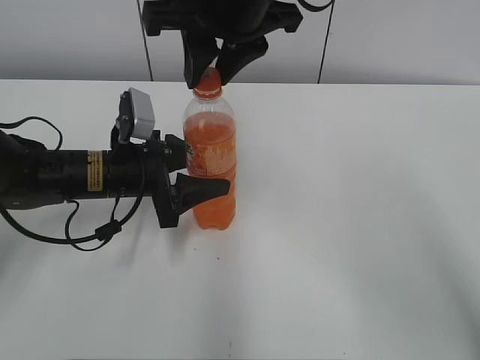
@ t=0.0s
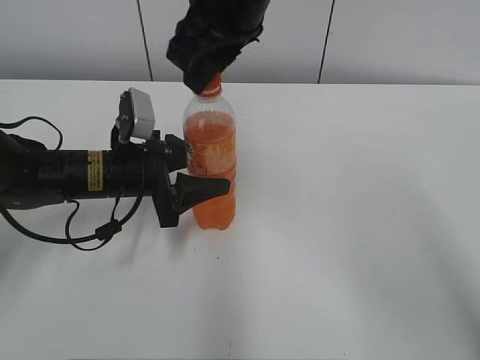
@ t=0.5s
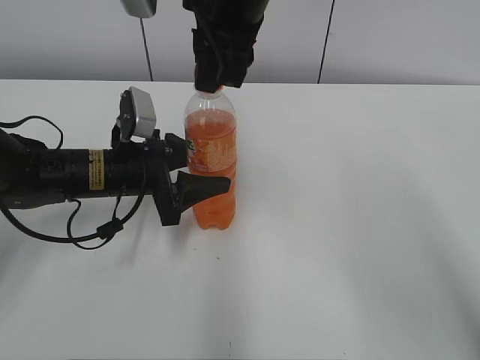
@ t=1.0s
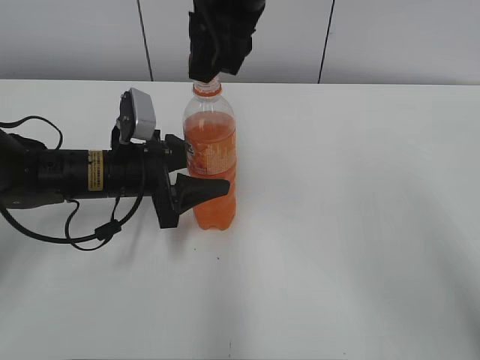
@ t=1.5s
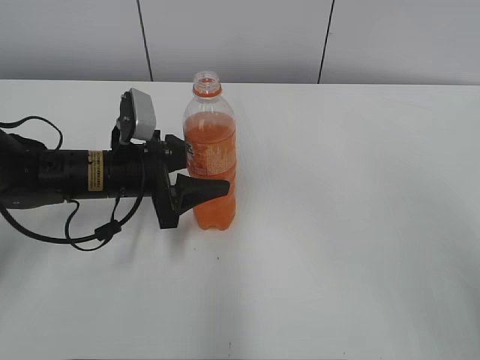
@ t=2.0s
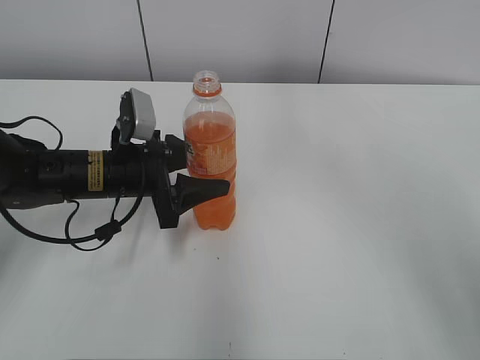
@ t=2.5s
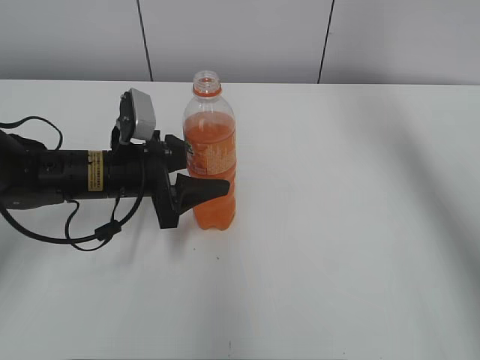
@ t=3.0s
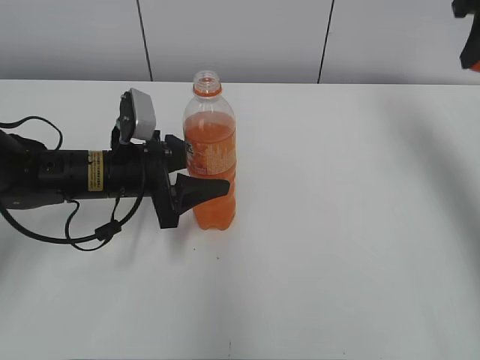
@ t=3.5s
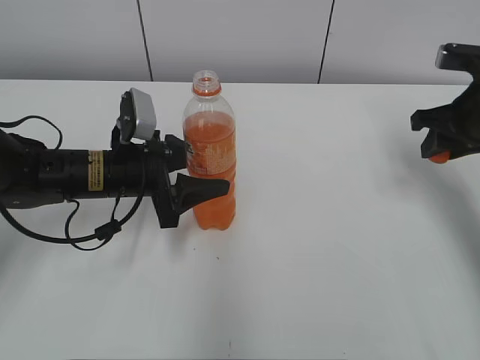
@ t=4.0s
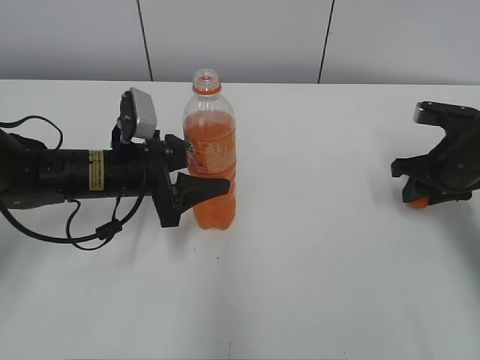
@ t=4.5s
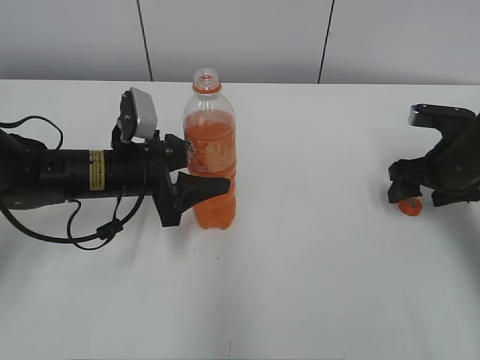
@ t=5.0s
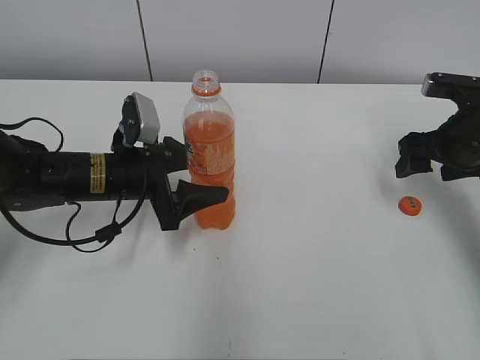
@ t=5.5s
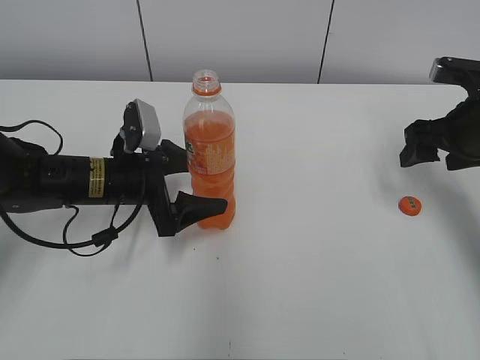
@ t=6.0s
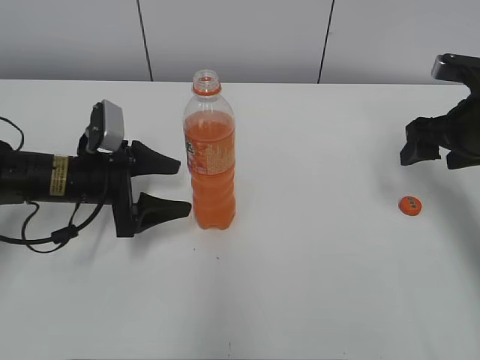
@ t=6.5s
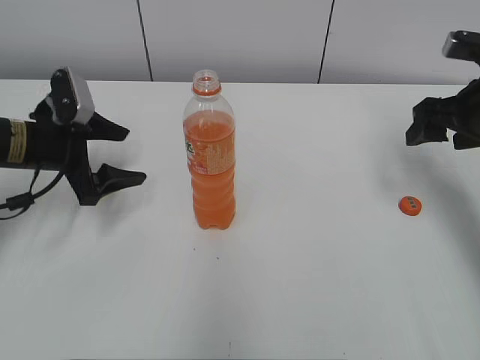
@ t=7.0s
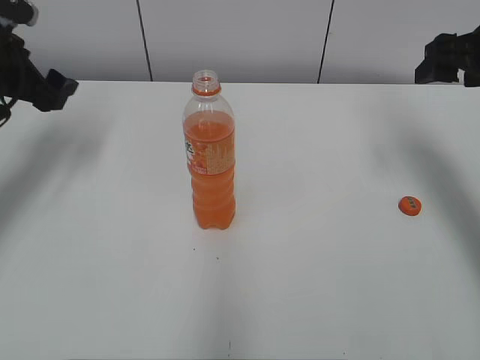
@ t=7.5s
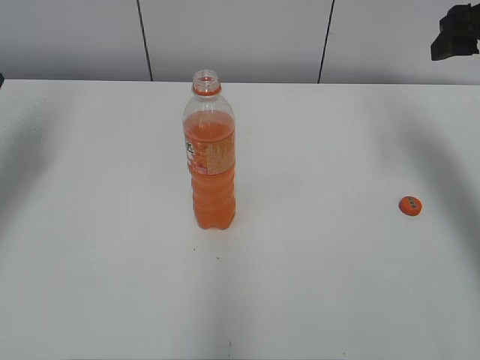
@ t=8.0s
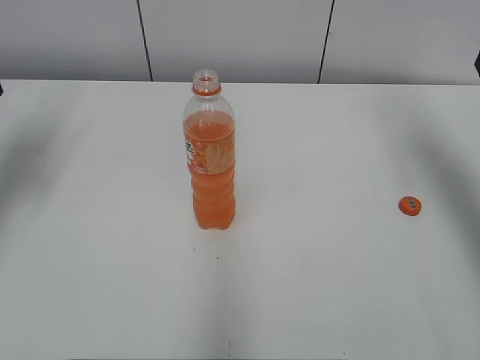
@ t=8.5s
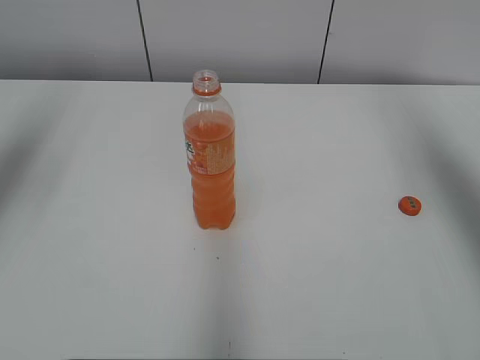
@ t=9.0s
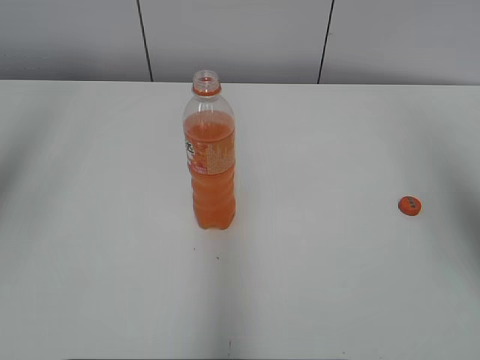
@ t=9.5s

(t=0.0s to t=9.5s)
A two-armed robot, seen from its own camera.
Step, t=1.5s - t=4.5s: Place the bottle cap on the right.
t=0.0s - t=2.0s: The right gripper goes roughly 10 cm upward.
t=2.0s - t=4.0s: The right gripper travels to the right and downward by approximately 35 cm.
t=4.0s - t=5.5s: The right gripper opens.
t=5.5s - t=7.5s: The right gripper goes approximately 10 cm upward, while the left gripper goes roughly 20 cm to the left and upward, and opens up.
t=7.5s - t=9.5s: The left gripper travels upward and backward by about 25 cm. Meanwhile the right gripper heads backward and upward, covering roughly 20 cm.

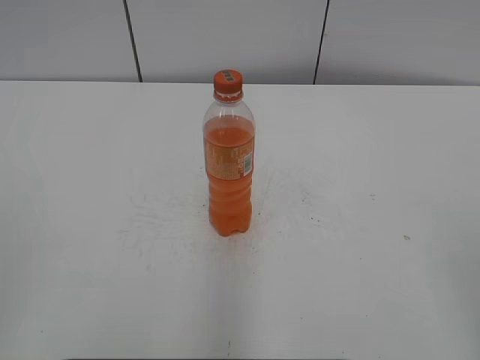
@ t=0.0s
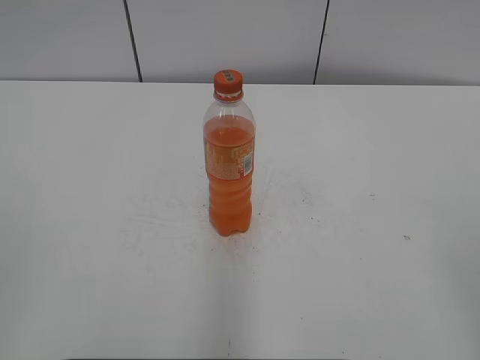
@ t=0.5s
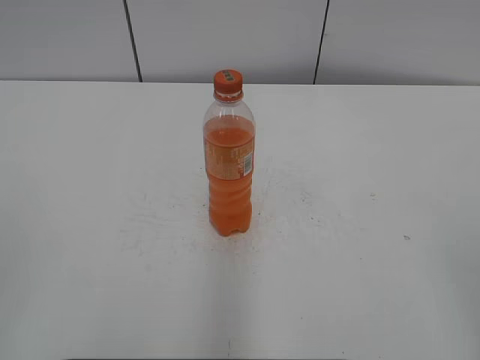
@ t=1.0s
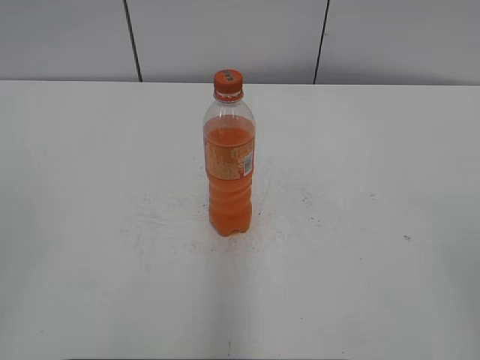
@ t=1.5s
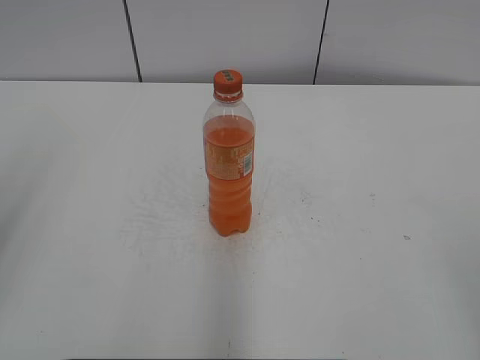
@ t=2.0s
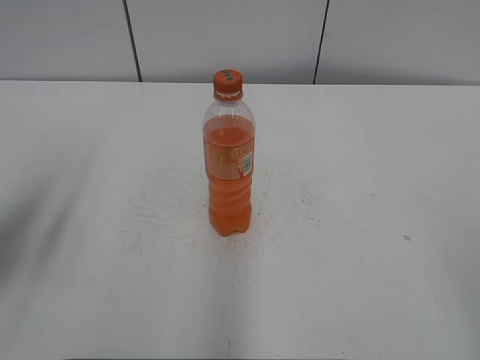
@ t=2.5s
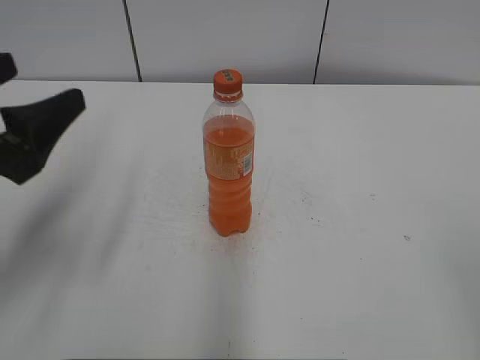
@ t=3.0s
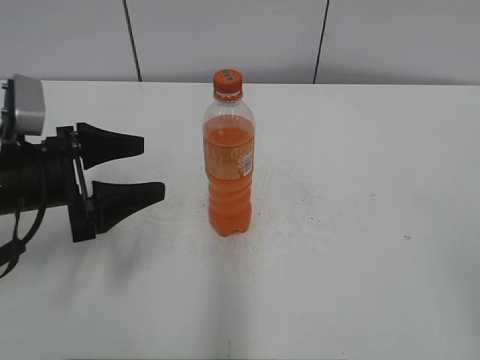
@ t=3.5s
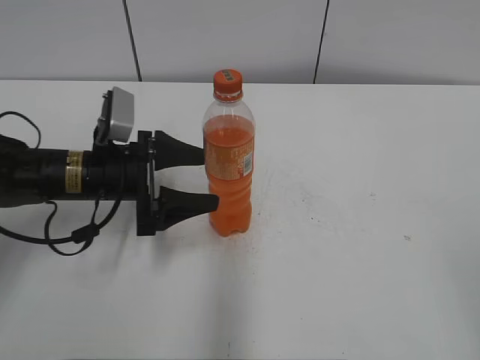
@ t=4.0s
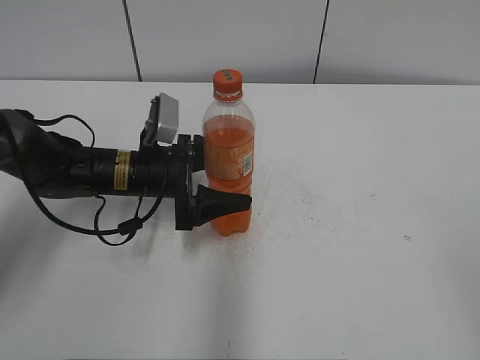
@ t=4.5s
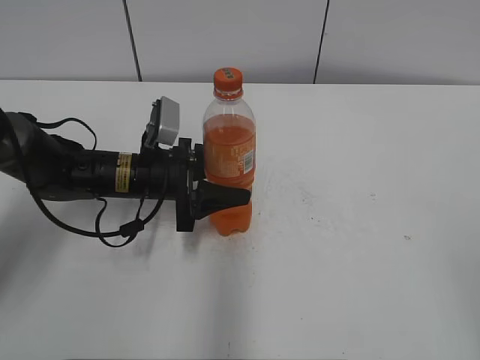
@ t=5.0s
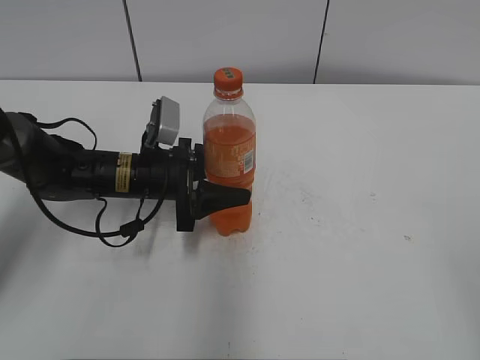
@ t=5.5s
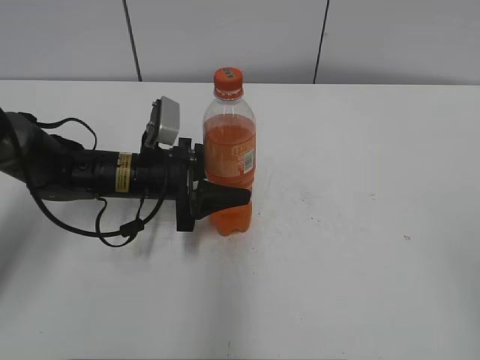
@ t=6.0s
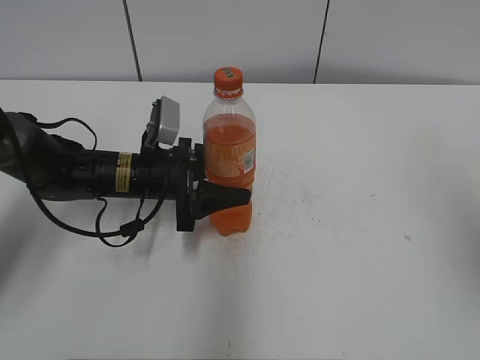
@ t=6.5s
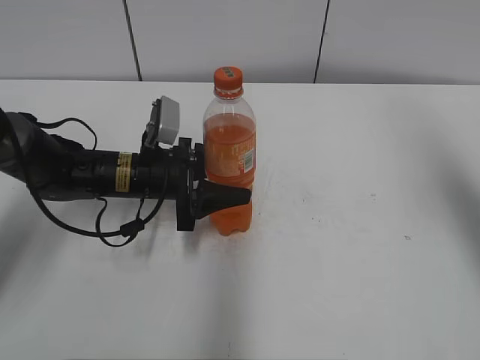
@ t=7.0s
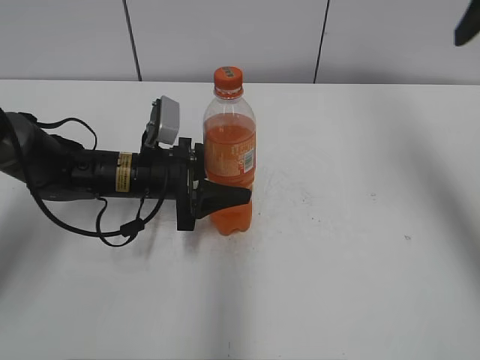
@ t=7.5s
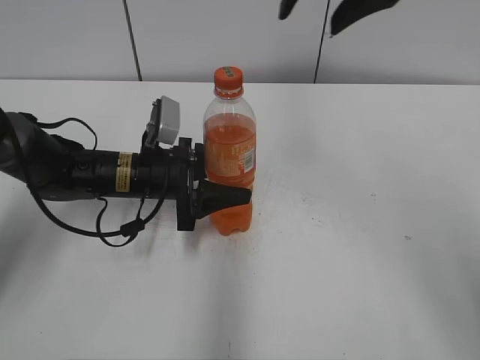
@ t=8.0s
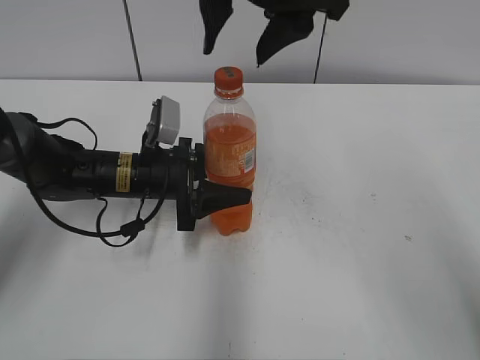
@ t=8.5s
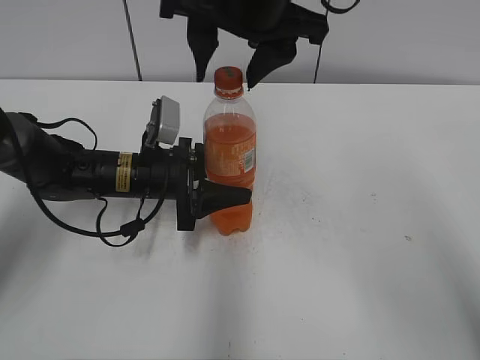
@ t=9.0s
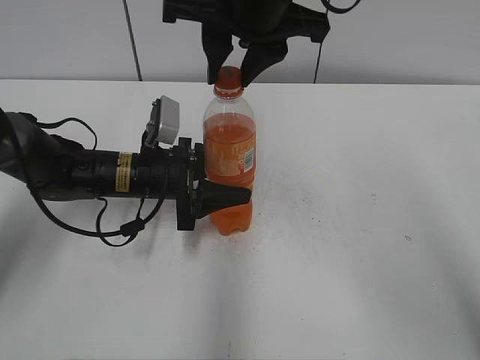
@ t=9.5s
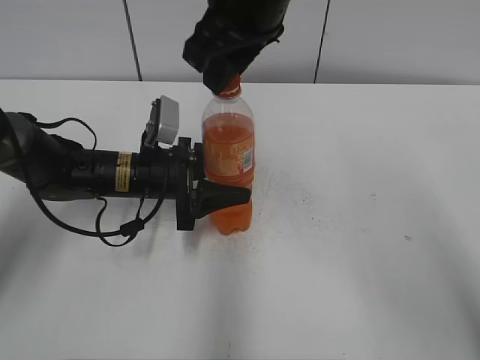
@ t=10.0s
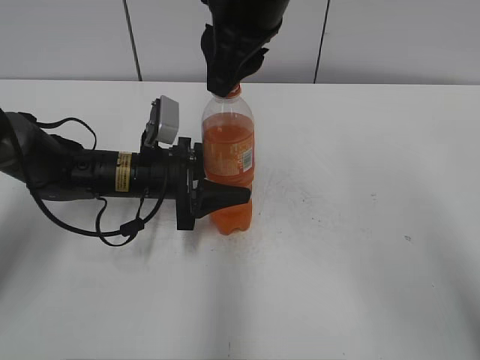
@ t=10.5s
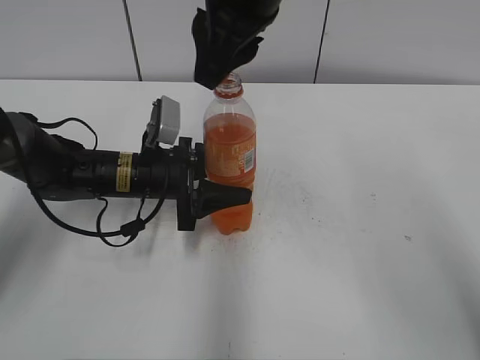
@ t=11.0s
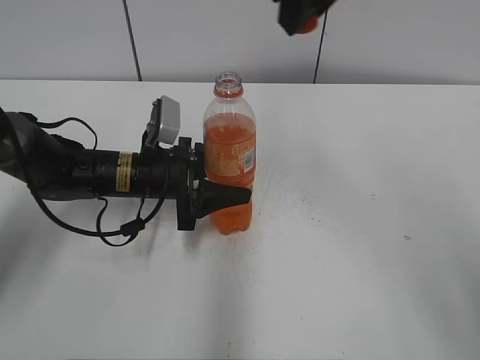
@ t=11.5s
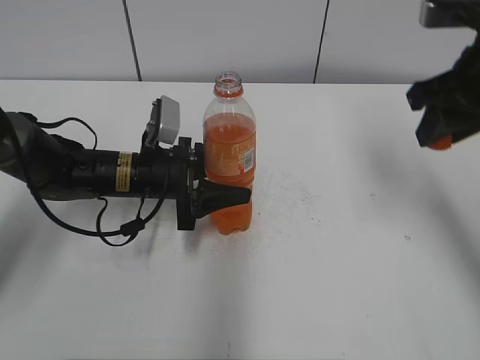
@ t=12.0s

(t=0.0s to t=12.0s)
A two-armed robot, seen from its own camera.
Step, t=0.0s - t=5.0s: Grab the Mirinda with the left hand.
t=2.0s - t=4.0s: The left gripper travels downward, forward and to the right by approximately 35 cm, and opens its fingers.
t=4.0s - t=6.0s: The left gripper ends up roughly 5 cm from where it was, and closes up.
t=6.0s - t=8.0s: The right gripper heads forward and to the left, covering about 35 cm.
t=8.0s - t=10.0s: The right gripper is displaced to the left and downward by some 10 cm, and closes its fingers.
t=10.0s - t=12.0s: The right gripper shifts approximately 20 cm to the right.

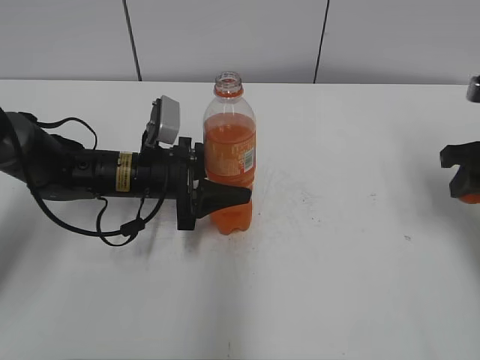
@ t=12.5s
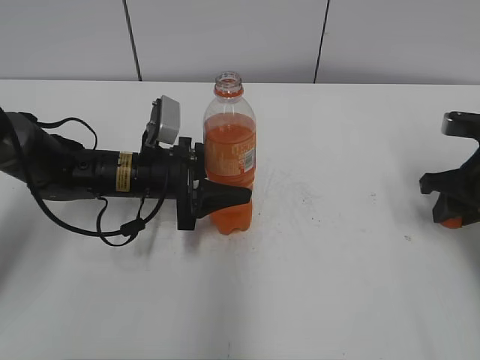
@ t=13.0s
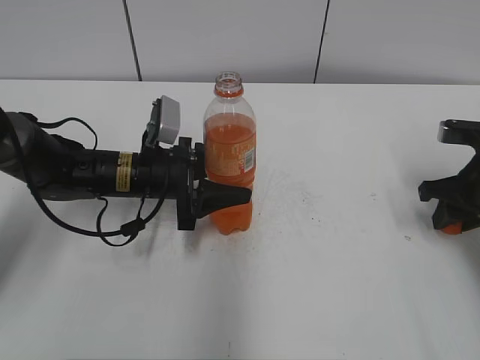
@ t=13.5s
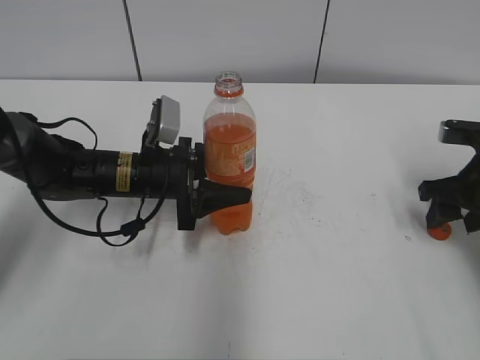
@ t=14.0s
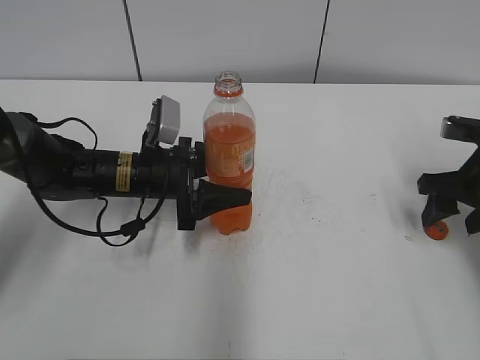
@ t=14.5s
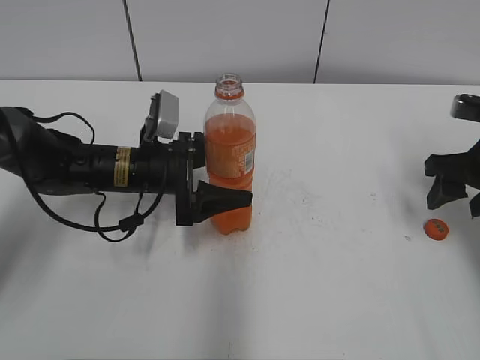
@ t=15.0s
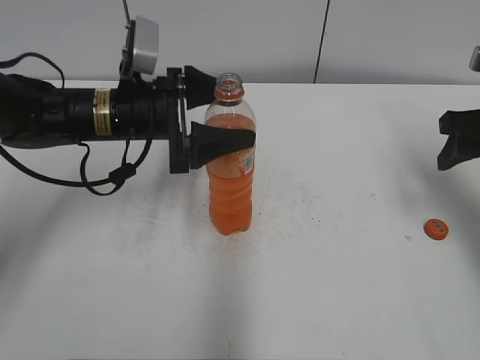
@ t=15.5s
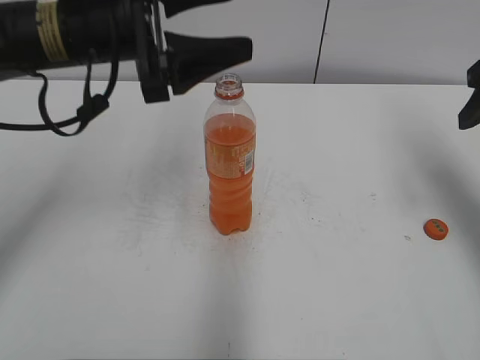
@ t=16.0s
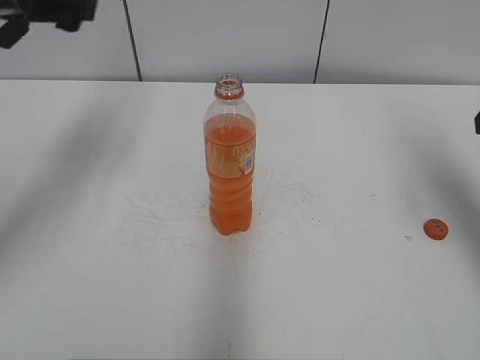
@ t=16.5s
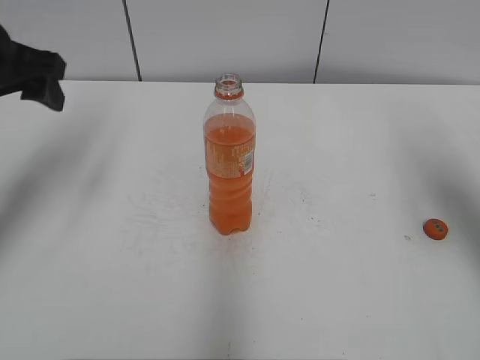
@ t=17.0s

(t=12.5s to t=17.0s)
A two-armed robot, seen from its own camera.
t=12.5s - t=14.5s: The right gripper travels downward by approximately 5 cm, and opens.
t=14.5s - t=17.0s: The right gripper goes about 15 cm upward. The left gripper goes approximately 25 cm upward and to the left, and opens its fingers.
